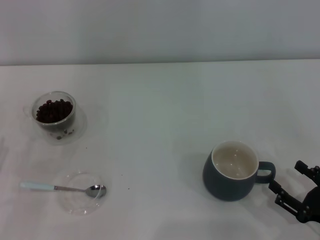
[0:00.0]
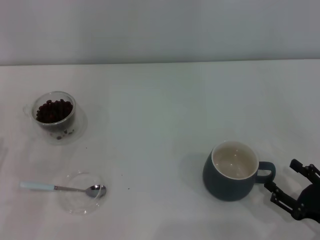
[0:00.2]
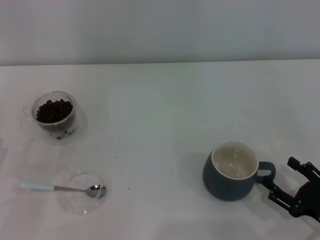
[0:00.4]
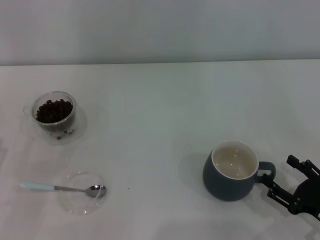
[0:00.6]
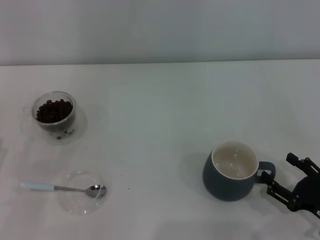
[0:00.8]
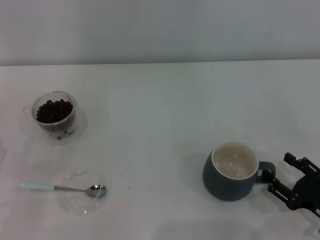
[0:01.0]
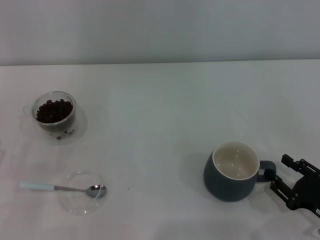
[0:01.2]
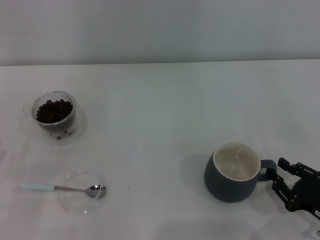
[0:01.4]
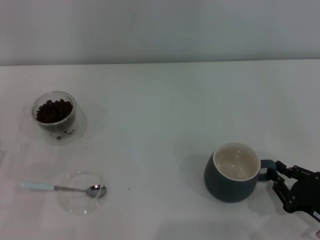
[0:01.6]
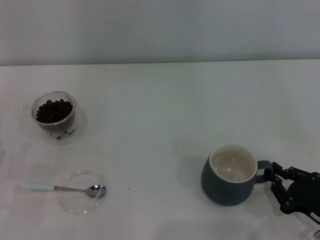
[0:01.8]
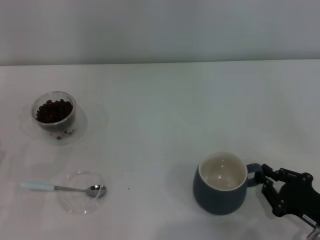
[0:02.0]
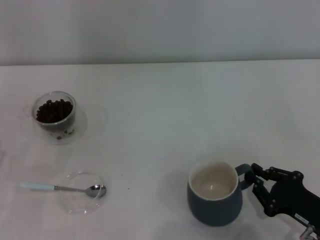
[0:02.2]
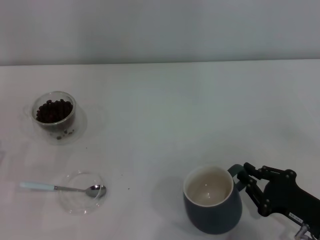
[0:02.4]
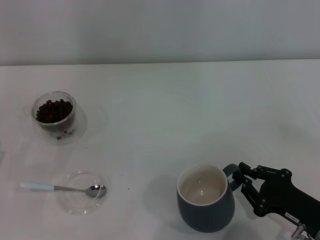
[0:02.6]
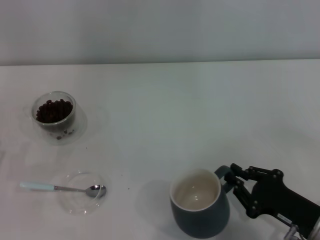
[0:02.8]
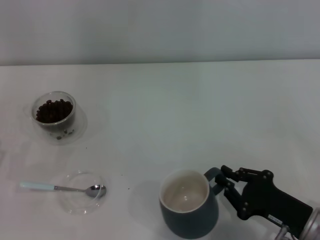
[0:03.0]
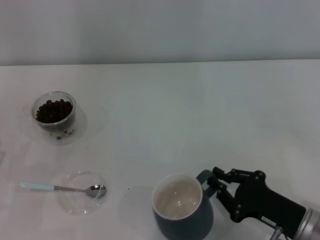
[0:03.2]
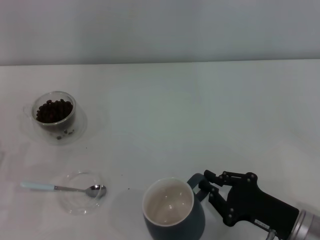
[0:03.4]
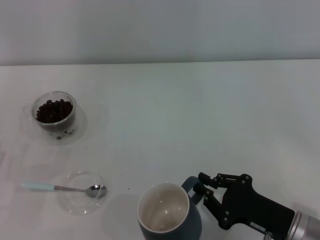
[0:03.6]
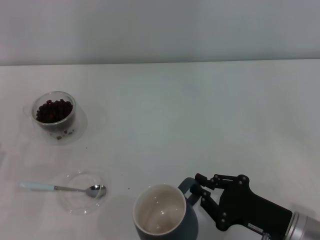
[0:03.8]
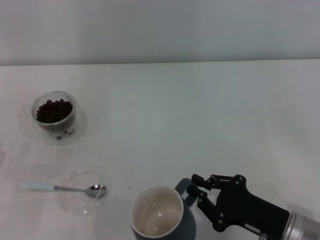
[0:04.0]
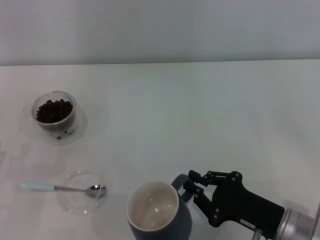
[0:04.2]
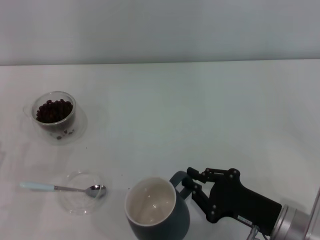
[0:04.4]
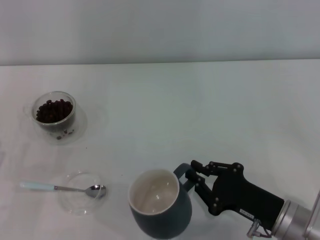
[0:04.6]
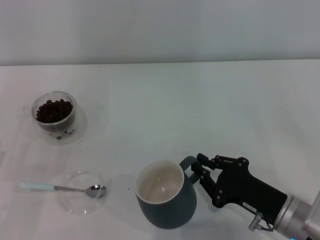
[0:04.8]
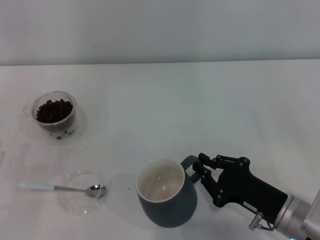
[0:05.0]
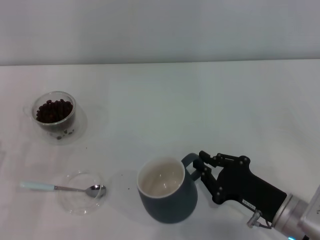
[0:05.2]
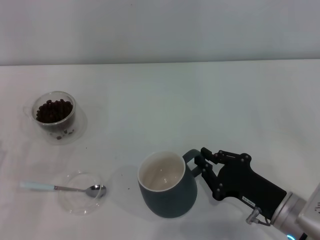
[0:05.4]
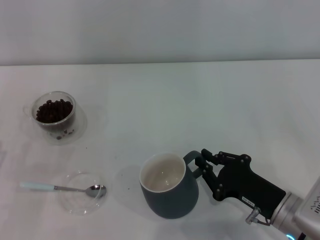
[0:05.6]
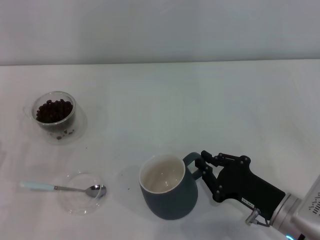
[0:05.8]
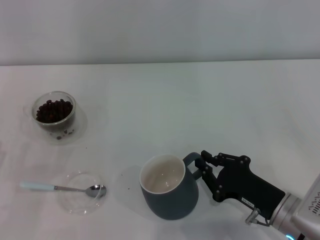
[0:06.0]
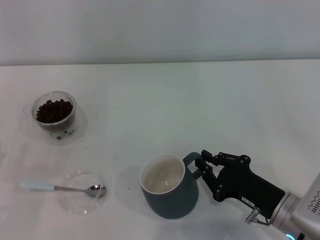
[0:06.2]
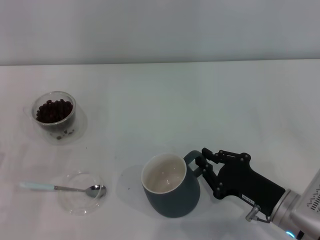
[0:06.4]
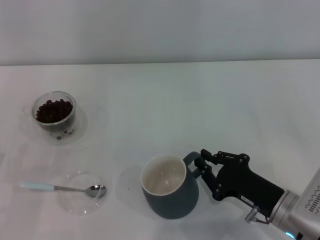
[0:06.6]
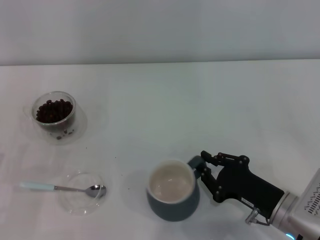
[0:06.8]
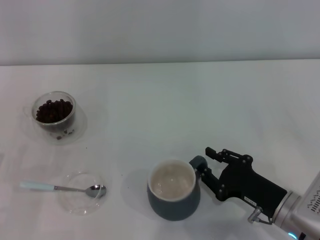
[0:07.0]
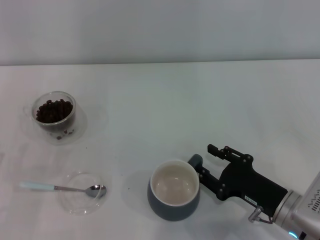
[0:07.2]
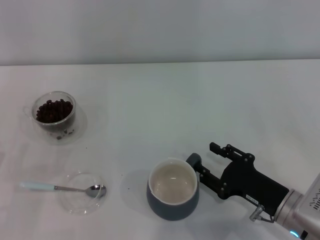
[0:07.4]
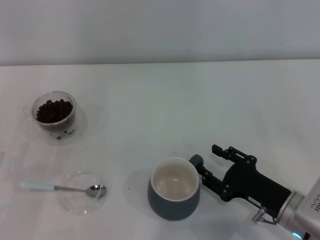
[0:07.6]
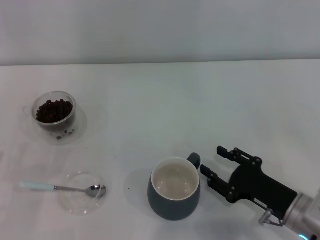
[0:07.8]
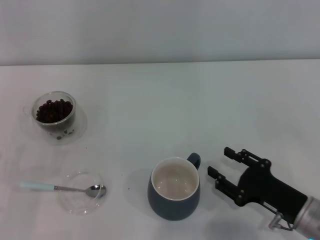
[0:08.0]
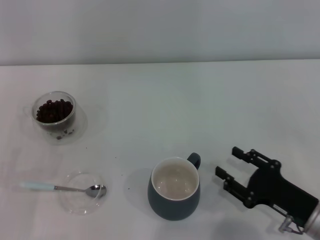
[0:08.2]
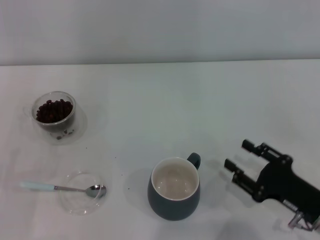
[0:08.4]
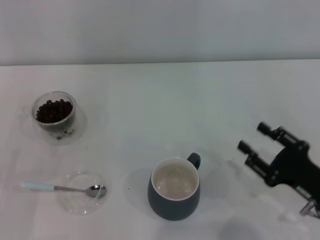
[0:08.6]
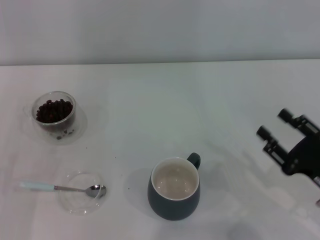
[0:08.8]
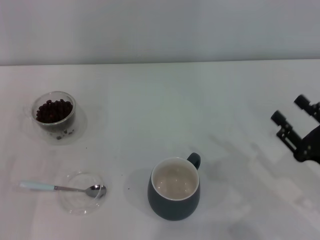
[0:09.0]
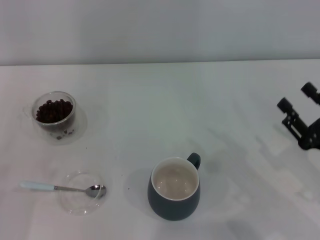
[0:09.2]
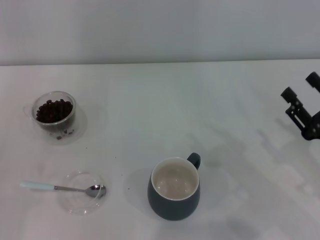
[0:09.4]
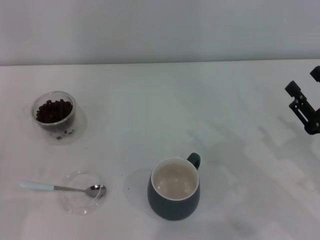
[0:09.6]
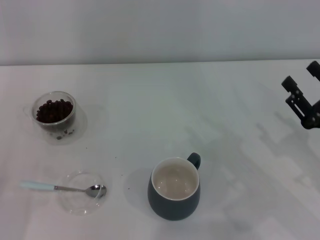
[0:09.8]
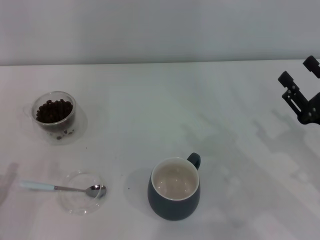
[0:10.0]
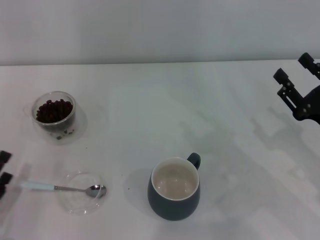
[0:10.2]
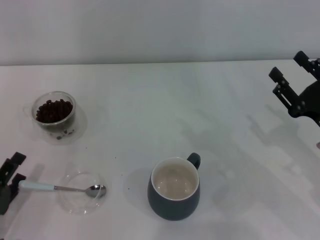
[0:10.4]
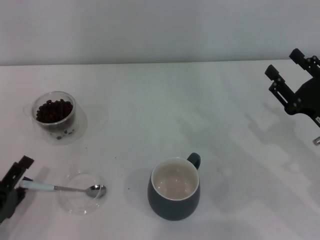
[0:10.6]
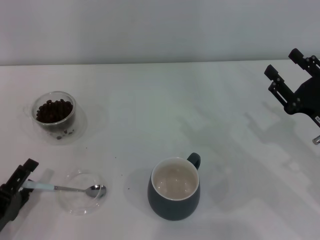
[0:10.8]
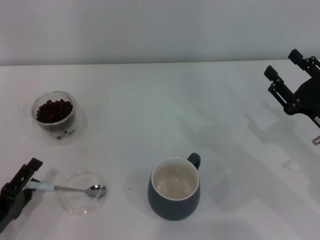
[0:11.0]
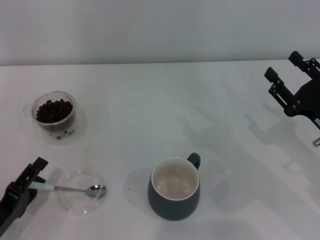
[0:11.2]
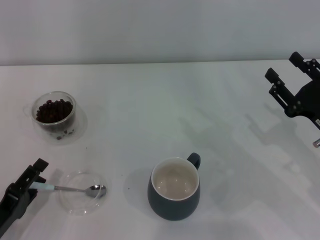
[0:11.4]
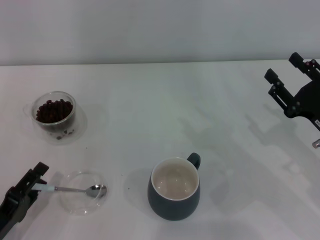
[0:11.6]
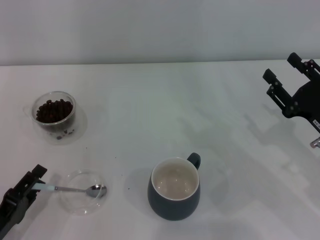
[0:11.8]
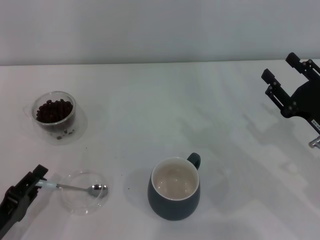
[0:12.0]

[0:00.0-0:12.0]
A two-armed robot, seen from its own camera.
Task of the whole recording: Use a blue spoon to take out the coffee beans from the glass and pour them into the gray cup.
0:00.0 to 0:01.6: The right gripper closes its fingers.
0:01.6 to 0:03.0: The right gripper travels to the left by approximately 5 cm.
0:03.0 to 0:06.0: The grippers move only a little.
0:06.0 to 0:07.6: The right gripper opens up.
0:07.6 to 0:09.0: The right gripper heads to the right, covering some 10 cm.
0:09.0 to 0:10.4: The right gripper is displaced forward by some 5 cm.
0:10.4 to 0:12.0: The grippers make only small movements.

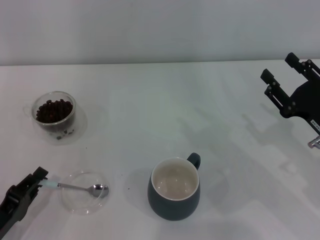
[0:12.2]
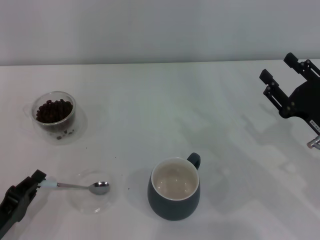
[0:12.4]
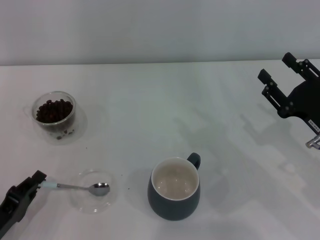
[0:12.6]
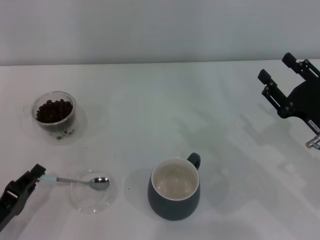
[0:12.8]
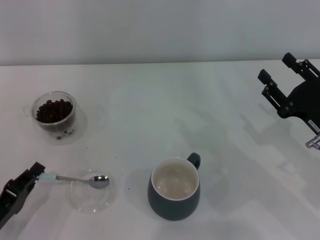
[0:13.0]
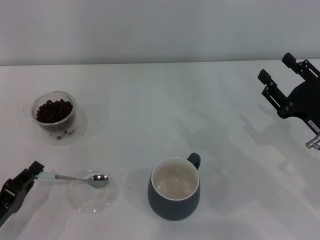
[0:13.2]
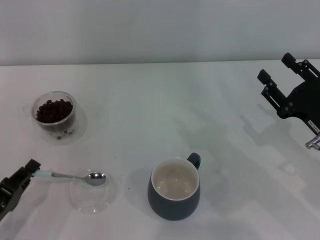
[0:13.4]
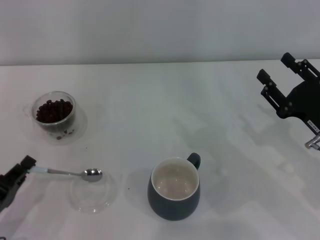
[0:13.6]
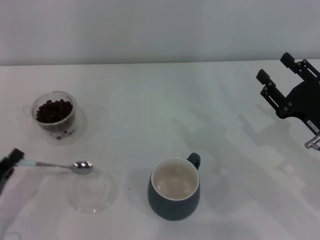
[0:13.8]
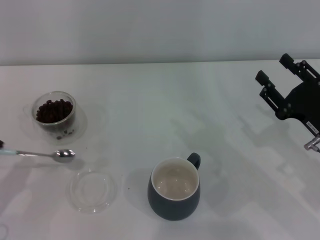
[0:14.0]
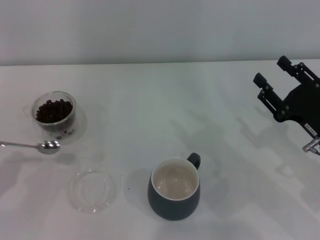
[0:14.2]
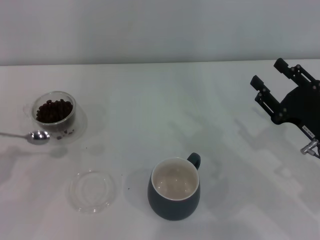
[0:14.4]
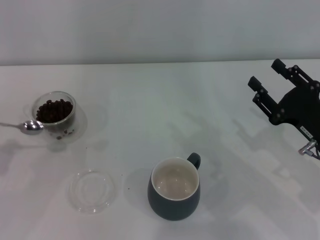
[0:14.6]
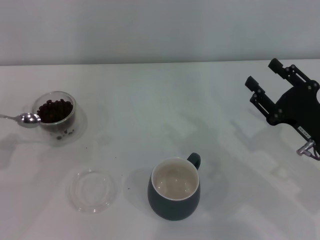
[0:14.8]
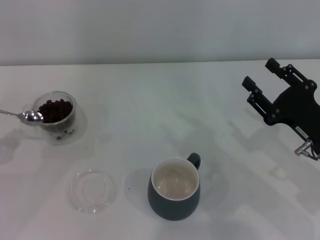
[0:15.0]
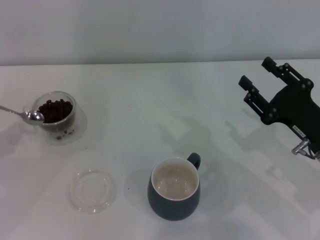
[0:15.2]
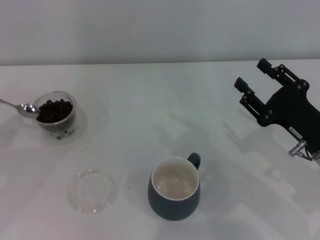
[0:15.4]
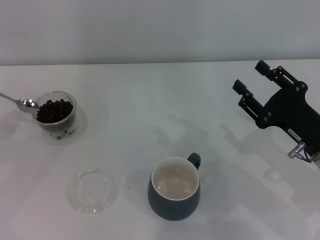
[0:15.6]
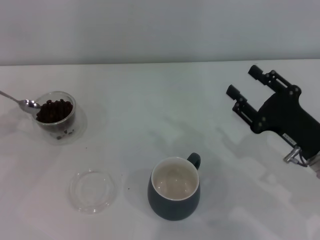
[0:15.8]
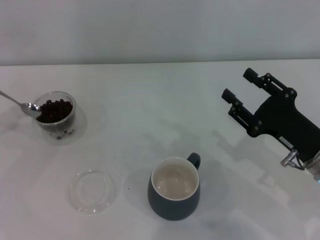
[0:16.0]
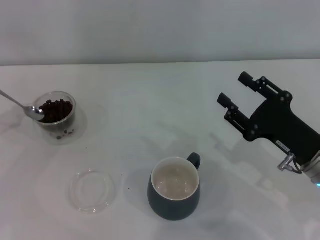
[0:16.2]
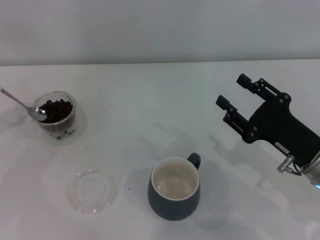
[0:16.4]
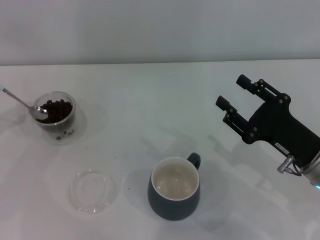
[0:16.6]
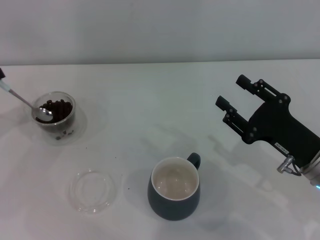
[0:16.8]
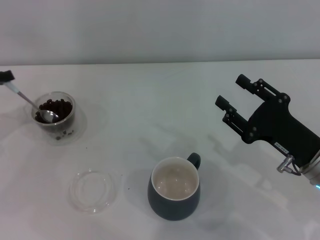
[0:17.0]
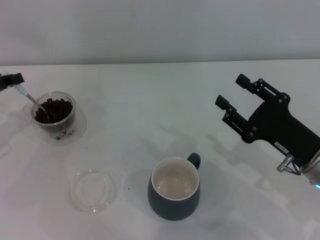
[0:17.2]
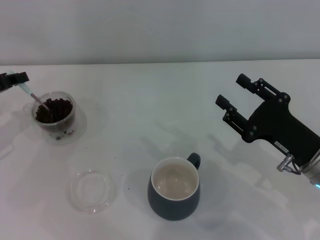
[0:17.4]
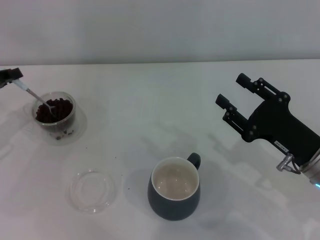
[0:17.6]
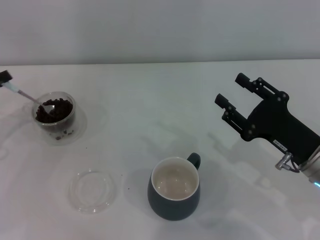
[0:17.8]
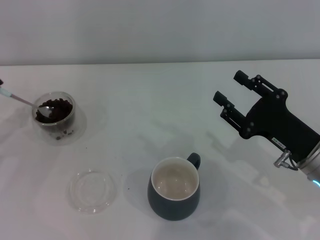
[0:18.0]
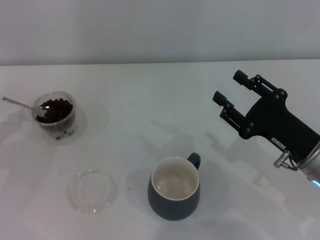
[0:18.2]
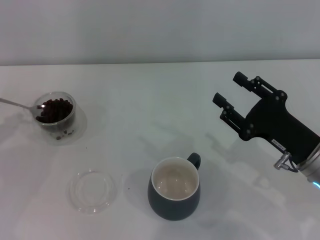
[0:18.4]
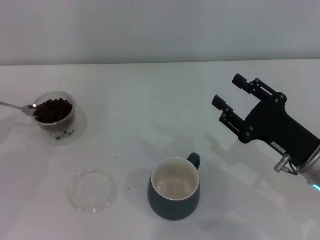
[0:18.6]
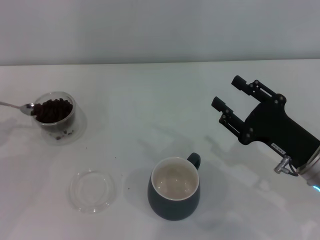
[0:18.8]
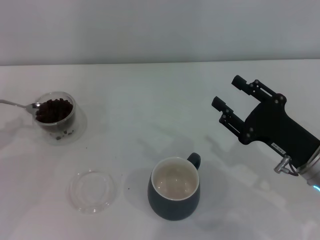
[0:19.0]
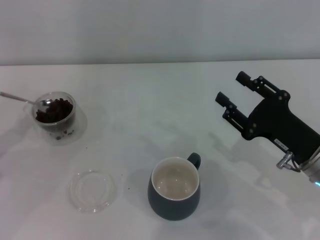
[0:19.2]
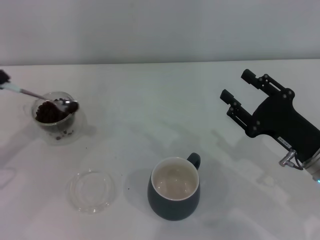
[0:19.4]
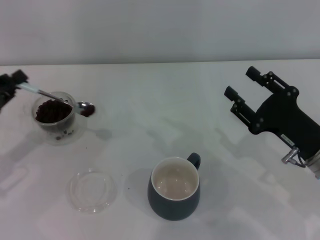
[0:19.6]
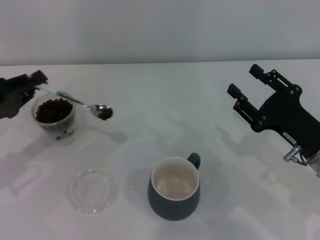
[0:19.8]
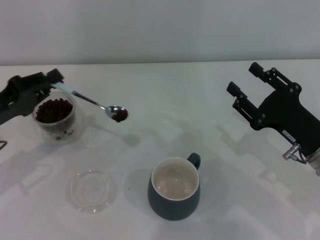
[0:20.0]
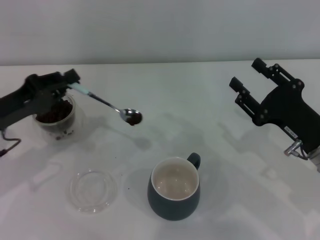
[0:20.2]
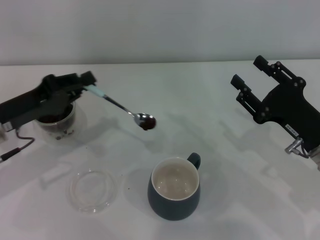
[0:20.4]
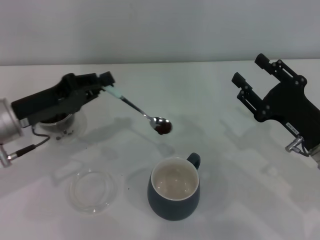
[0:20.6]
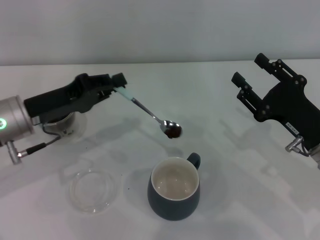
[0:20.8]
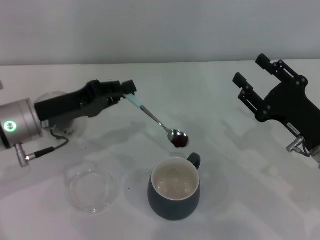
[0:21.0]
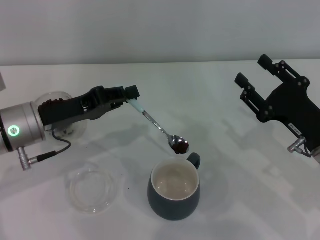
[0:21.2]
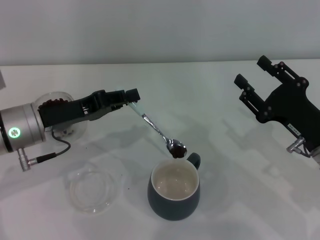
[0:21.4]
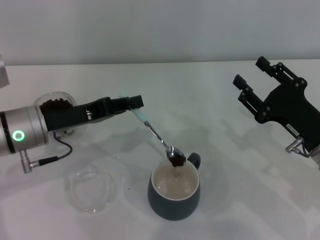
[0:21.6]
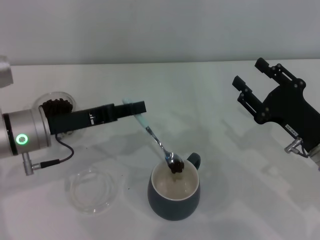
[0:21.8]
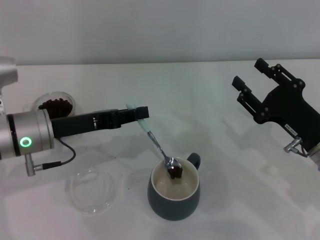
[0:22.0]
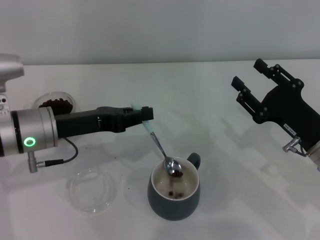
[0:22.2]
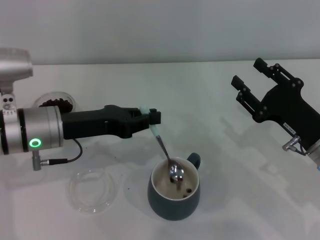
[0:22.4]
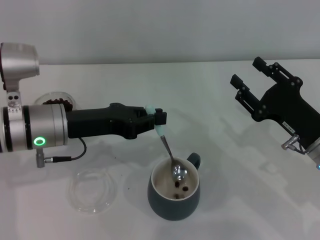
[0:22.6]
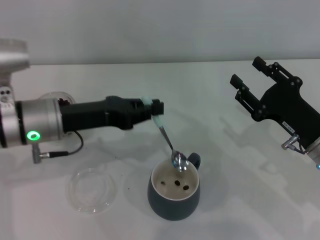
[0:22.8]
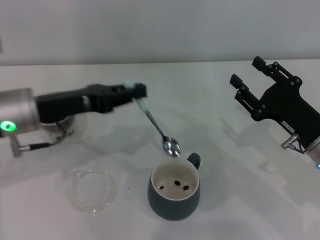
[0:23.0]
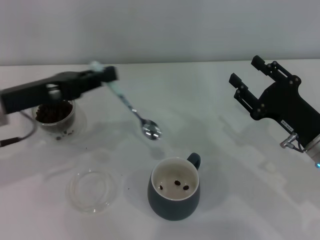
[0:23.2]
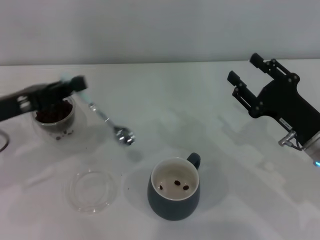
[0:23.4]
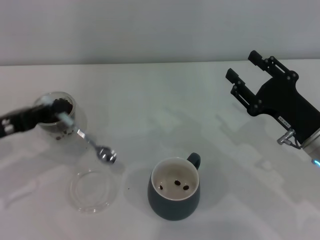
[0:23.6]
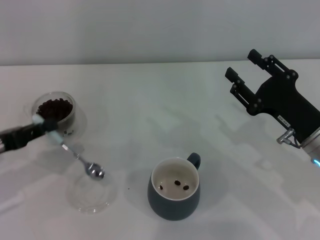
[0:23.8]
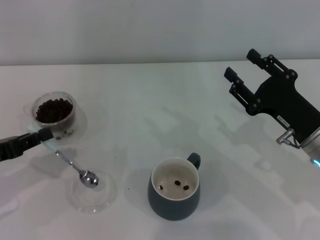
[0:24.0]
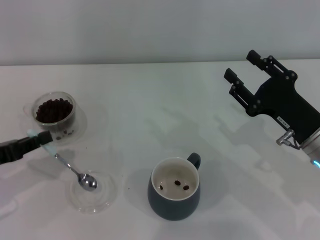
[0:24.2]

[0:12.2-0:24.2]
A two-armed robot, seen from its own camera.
Task of the whole recording: Use a blue spoon to take out the coffee beans from the glass and pour them into the gray cup.
0:12.2 to 0:13.8: The left gripper closes its fingers.
0:13.8 to 0:15.2: The left gripper moves upward, forward and to the left, about 15 cm.
0:15.2 to 0:16.6: The left gripper heads forward, covering approximately 10 cm.
0:18.2 to 0:19.8: The left gripper moves to the right, roughly 5 cm.
0:19.8 to 0:21.2: The left gripper is displaced to the right by approximately 10 cm.
0:22.6 to 0:24.2: The left gripper moves to the left and backward, some 15 cm.
